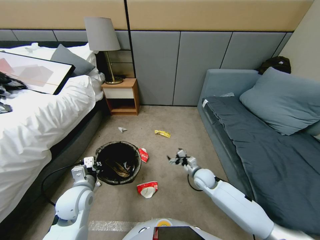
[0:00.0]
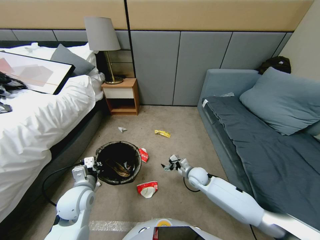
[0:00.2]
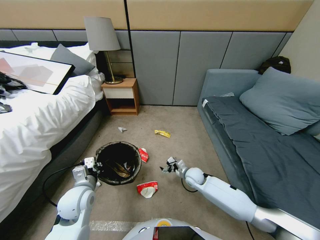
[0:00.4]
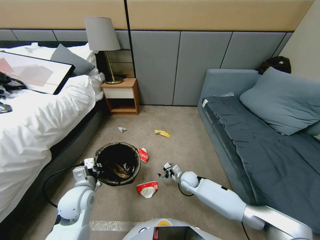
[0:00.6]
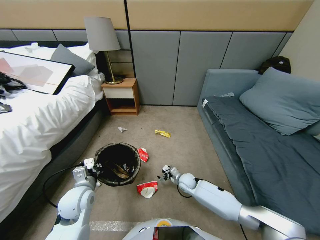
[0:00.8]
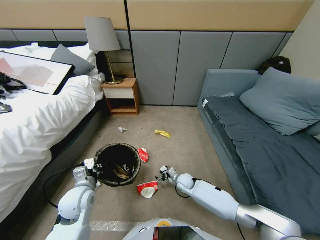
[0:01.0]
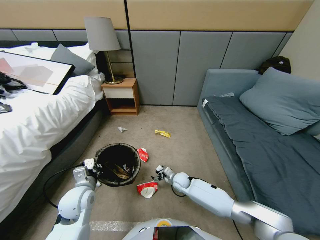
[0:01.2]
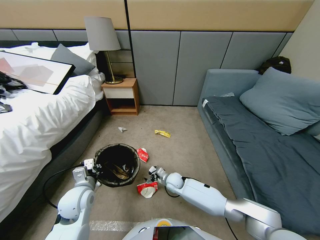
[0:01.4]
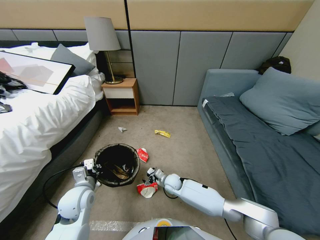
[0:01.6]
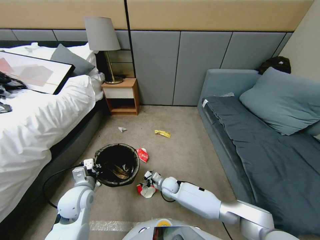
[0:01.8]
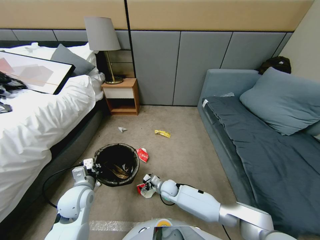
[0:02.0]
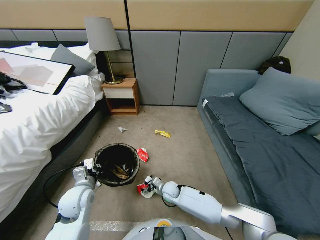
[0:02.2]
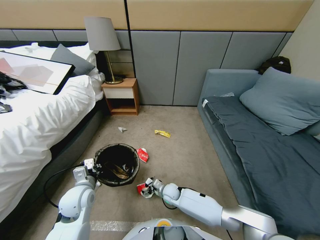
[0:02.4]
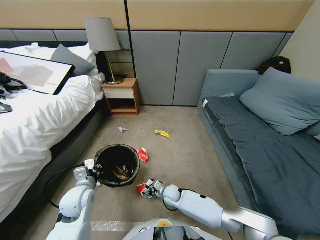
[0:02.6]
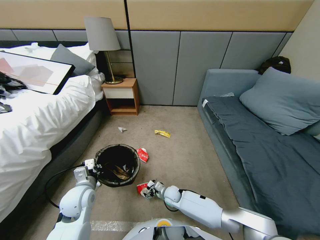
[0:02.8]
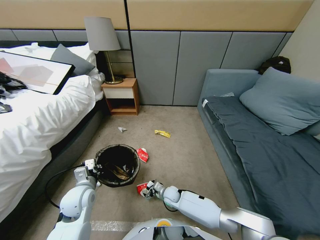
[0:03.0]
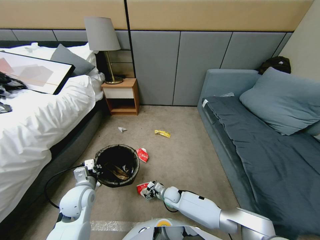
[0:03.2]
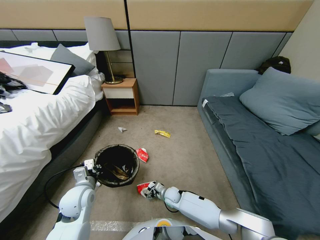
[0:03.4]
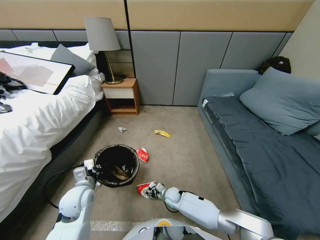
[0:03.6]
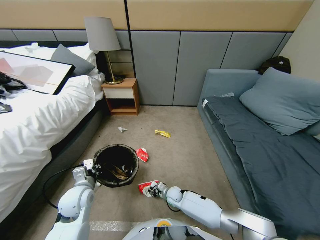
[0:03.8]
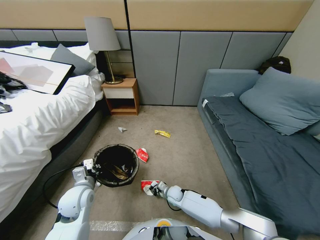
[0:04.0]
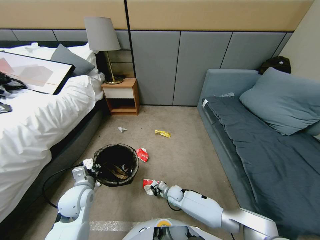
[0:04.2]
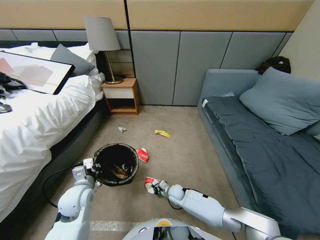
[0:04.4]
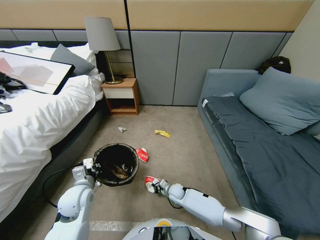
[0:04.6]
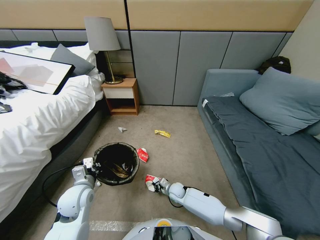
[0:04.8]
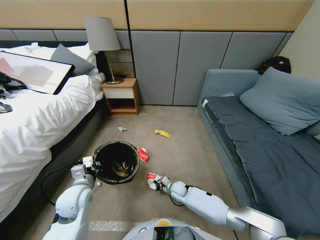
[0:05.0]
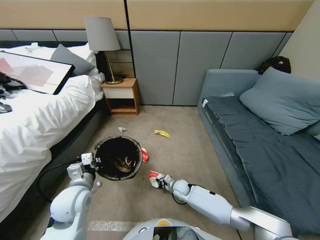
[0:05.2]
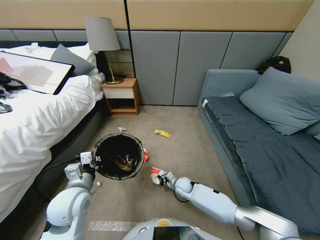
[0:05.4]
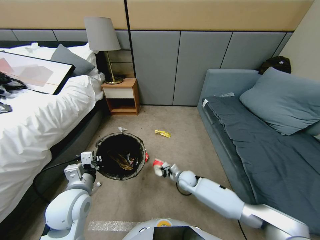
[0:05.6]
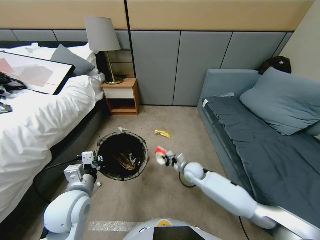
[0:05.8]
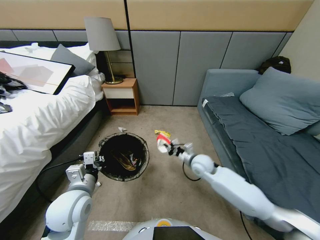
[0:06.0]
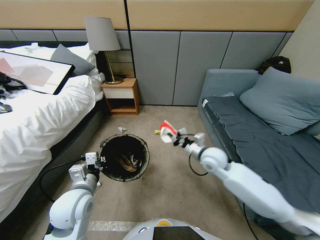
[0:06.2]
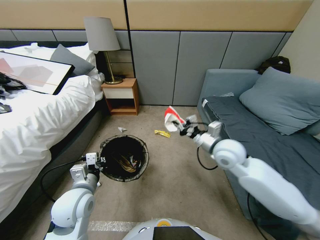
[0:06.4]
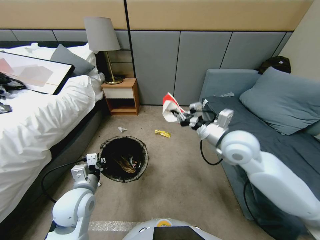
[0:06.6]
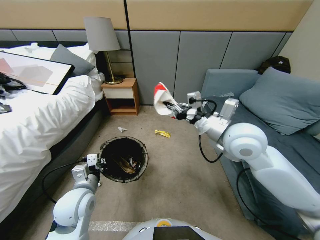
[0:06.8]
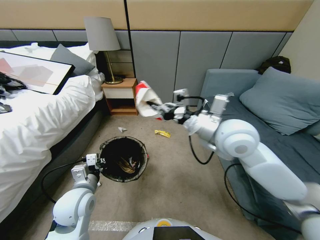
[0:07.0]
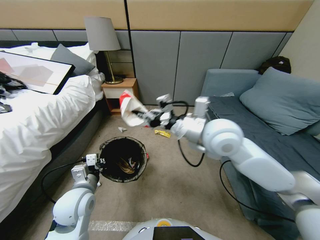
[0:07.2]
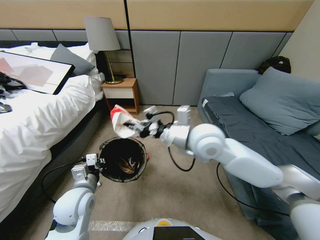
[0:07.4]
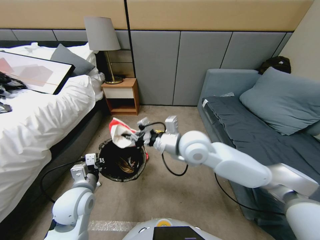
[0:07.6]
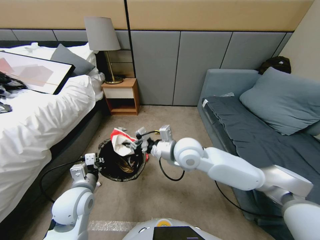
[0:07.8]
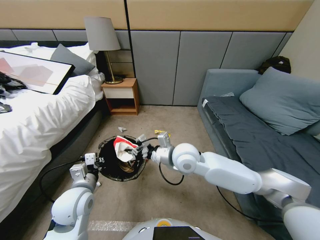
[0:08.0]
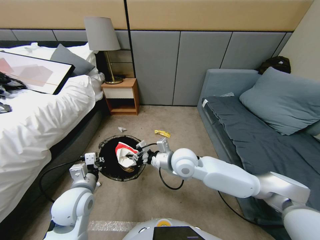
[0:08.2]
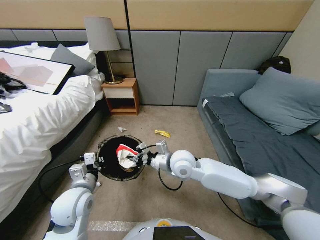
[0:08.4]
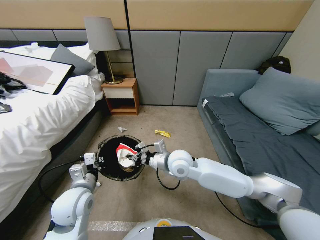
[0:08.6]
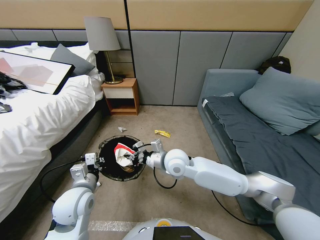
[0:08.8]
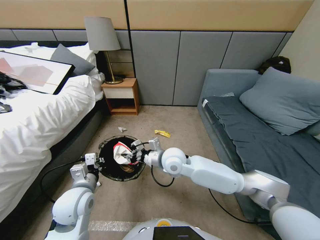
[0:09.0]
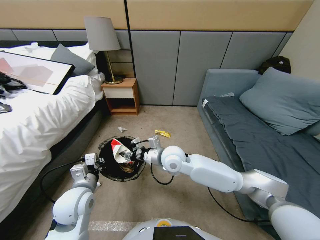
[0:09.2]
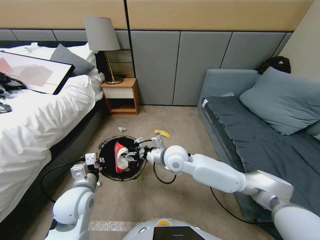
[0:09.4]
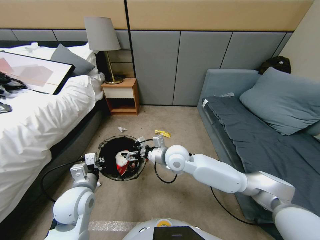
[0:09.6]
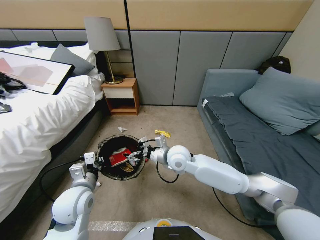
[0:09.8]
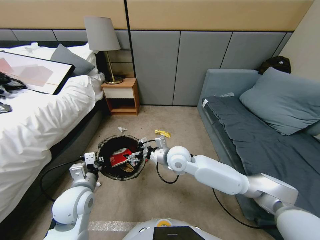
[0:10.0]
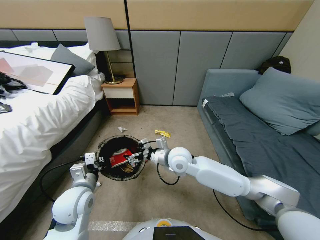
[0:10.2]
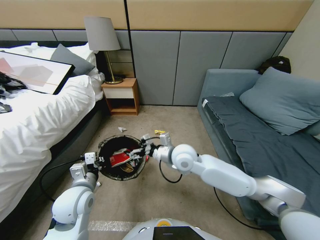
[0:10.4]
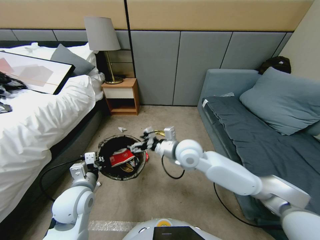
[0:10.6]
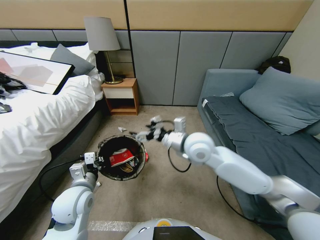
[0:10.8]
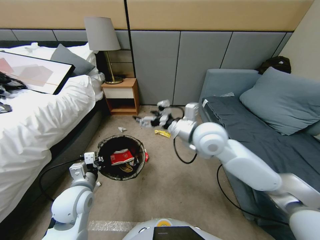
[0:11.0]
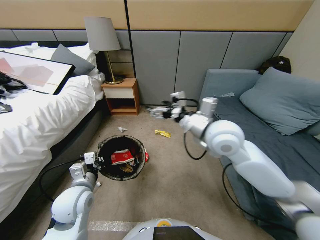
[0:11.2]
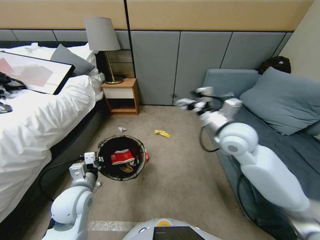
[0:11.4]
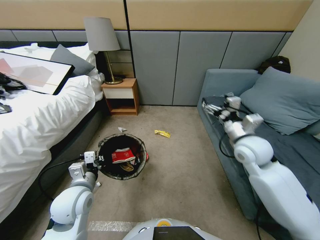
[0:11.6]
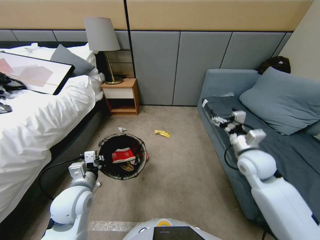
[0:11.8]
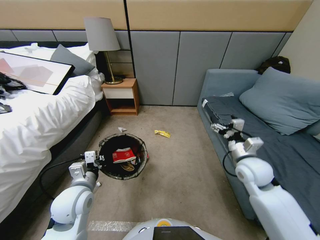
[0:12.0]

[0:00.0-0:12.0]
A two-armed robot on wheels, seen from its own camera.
Task of the whole recording: Pick up the trash bin, then pick up the garbage from the floor and place it into the trash bin.
0:00.0 to 0:01.6: The right gripper goes some 20 cm to the left and downward.
0:01.6 to 0:03.0: The right gripper shifts some 5 cm downward.
0:03.0 to 0:04.4: The right gripper closes up.
0:04.4 to 0:06.0: The right gripper goes about 30 cm upward. Meanwhile the left gripper goes some 5 cm upward.
0:06.0 to 0:07.6: The right gripper heads to the left and upward, covering some 15 cm.
0:07.6 to 0:09.0: The right gripper heads downward, covering some 5 cm.
0:09.0 to 0:10.4: The right gripper moves approximately 5 cm, and opens.
0:10.4 to 0:12.0: The right gripper is displaced to the right by approximately 20 cm.

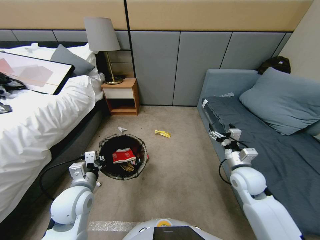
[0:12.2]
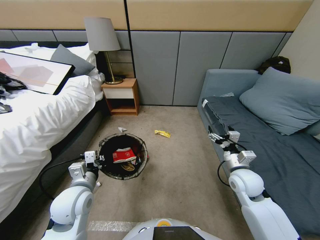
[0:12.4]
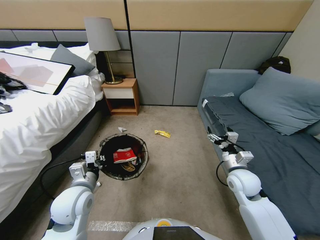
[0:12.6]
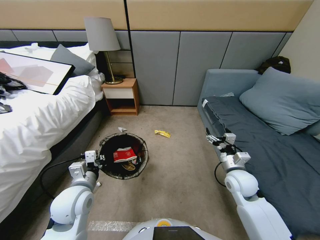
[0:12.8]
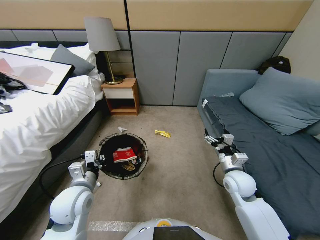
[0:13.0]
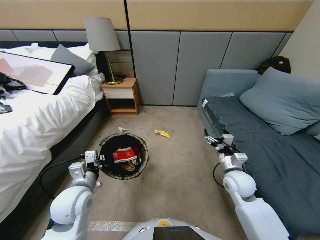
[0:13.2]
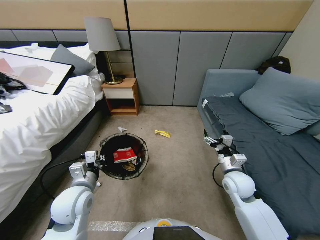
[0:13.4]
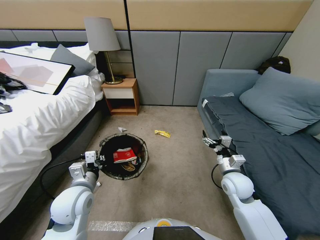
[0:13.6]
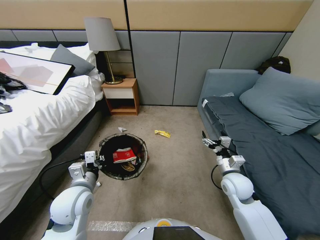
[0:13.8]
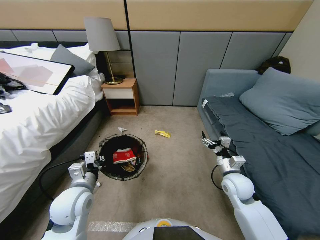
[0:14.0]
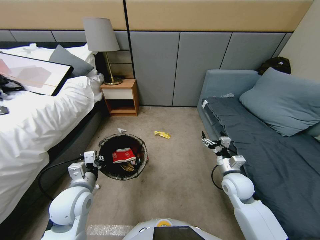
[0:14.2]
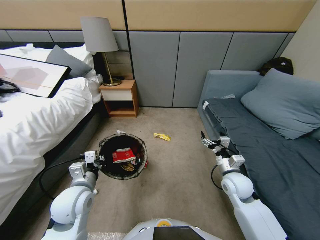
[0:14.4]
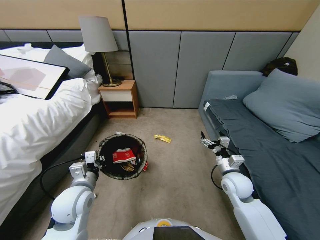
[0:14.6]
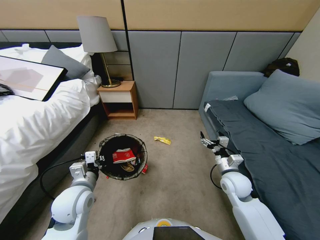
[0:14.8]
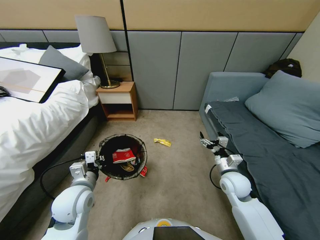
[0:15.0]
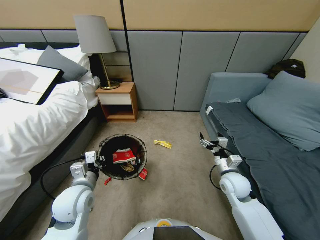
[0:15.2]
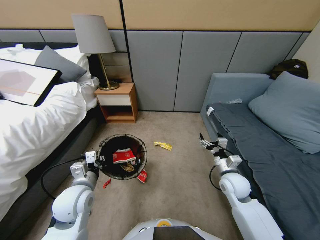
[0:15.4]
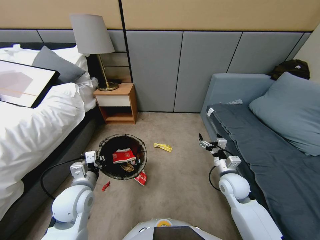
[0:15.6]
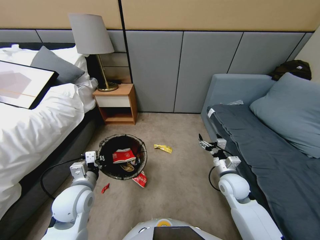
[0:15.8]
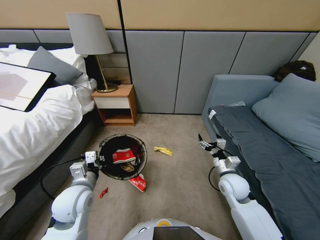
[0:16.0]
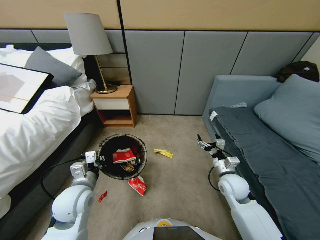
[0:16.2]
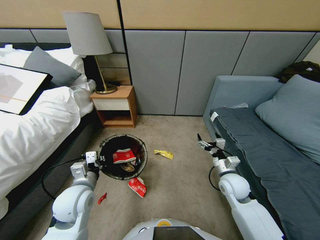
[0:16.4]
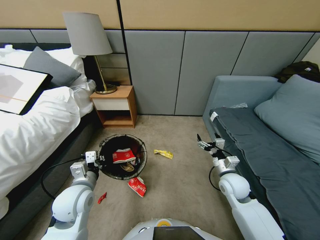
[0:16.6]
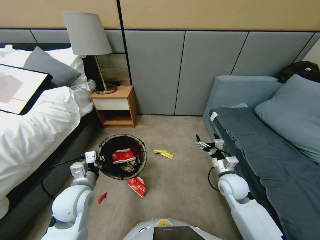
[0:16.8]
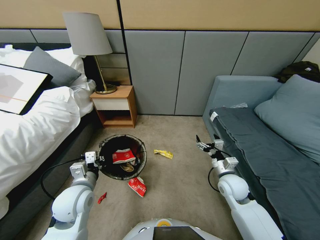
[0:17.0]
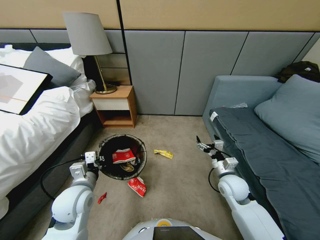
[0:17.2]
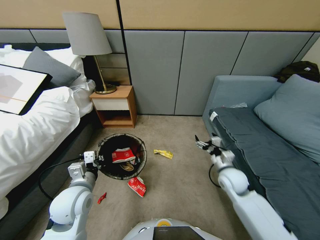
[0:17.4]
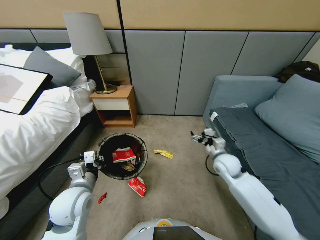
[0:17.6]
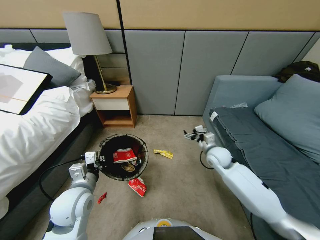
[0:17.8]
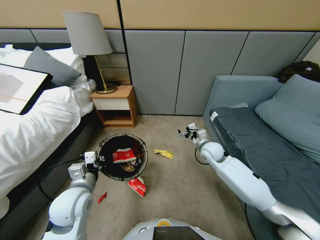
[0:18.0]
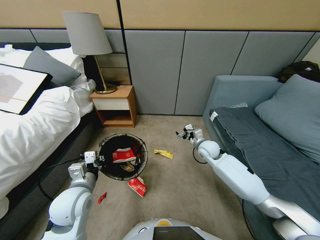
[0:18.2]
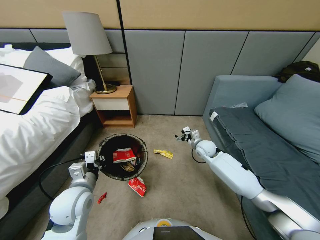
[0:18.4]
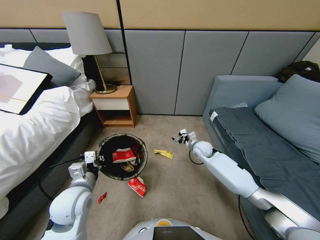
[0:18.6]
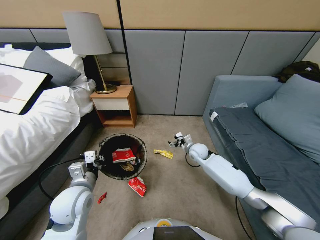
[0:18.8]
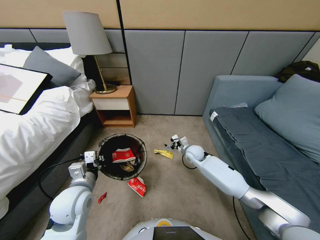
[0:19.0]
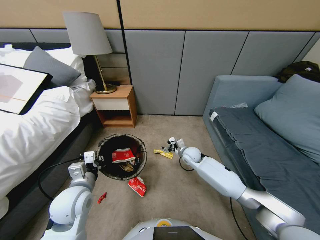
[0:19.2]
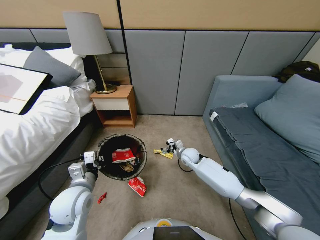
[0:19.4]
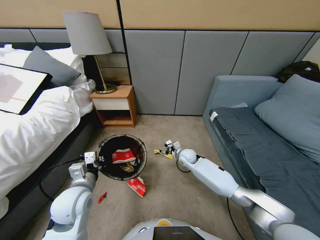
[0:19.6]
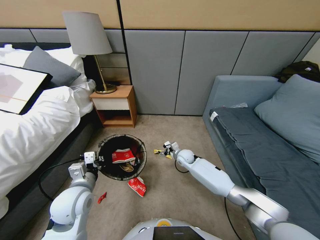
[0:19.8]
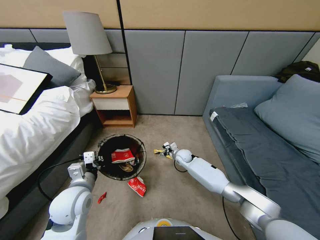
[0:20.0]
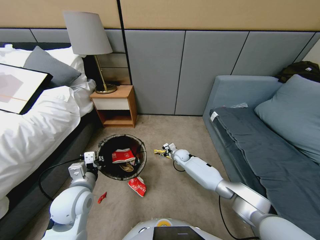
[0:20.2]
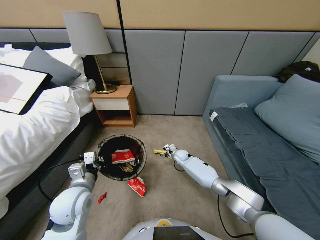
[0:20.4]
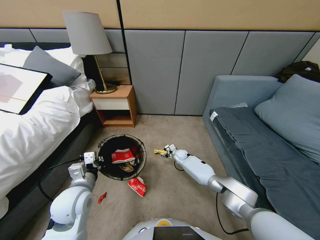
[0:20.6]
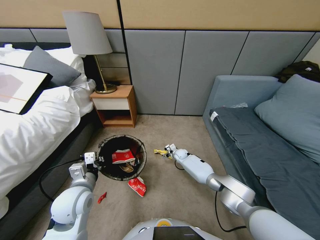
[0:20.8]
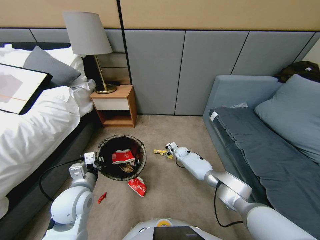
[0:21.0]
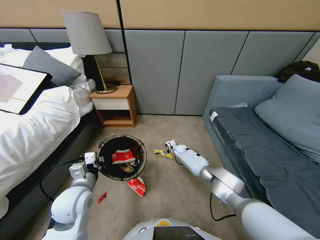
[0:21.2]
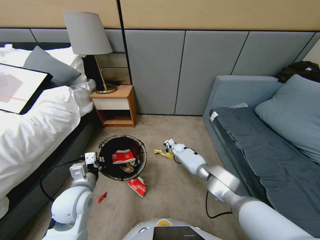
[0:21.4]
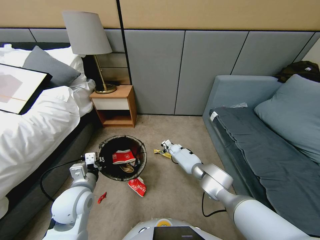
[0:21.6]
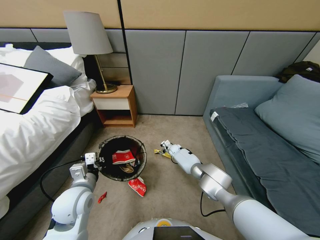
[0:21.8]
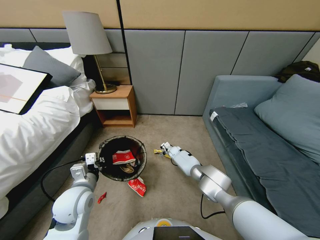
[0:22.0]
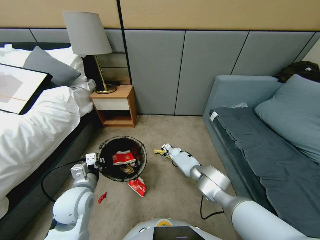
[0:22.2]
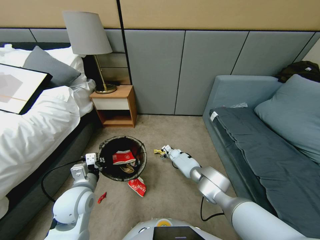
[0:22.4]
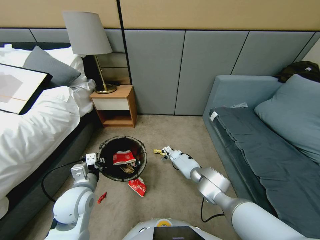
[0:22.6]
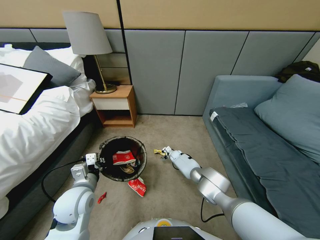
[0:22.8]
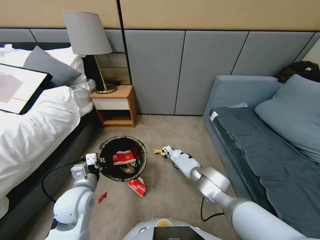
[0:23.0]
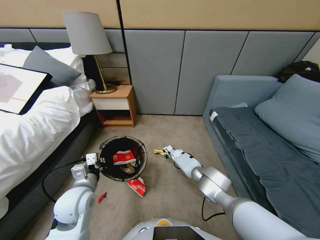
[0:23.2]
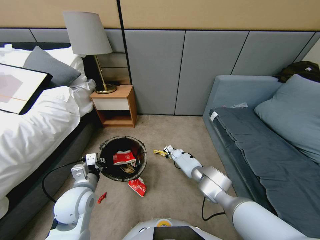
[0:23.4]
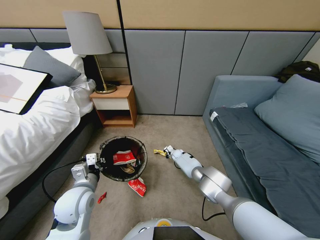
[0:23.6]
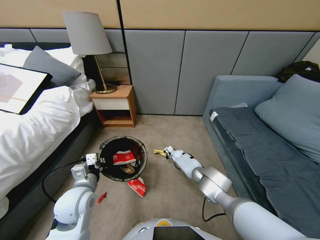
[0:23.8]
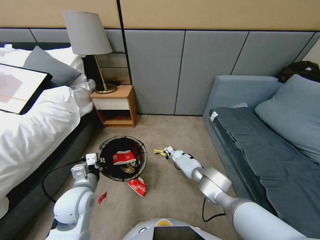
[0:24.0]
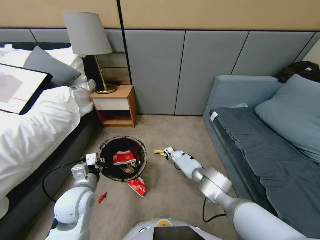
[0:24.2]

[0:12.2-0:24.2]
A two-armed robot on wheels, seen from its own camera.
Task of the whole recording: Pick up the trash bin, then pick up the garbage from the floor and place it into the trash bin.
0:12.2 to 0:13.8: The grippers make only small movements.
0:15.2 to 0:16.6: Both grippers stay about where they are.
0:16.6 to 0:18.2: The right gripper is displaced forward by roughly 20 cm.
0:18.2 to 0:19.8: The right gripper shifts roughly 15 cm downward and to the left.
0:19.8 to 0:21.2: The right gripper goes about 15 cm forward and downward.
0:21.2 to 0:22.6: The right gripper changes place by roughly 5 cm.
0:22.6 to 0:24.2: The right gripper closes.
